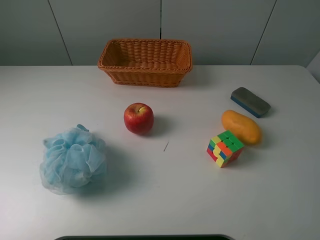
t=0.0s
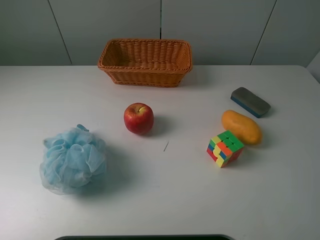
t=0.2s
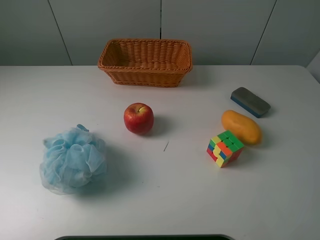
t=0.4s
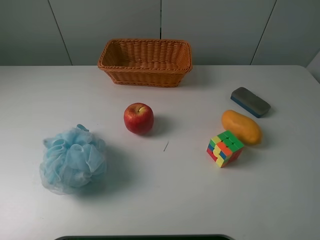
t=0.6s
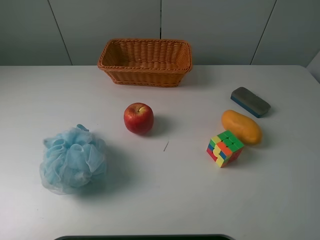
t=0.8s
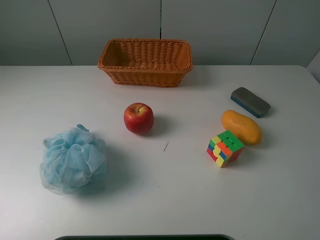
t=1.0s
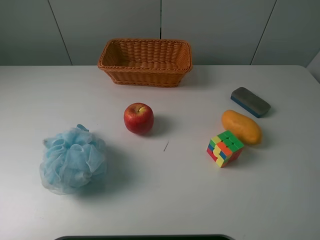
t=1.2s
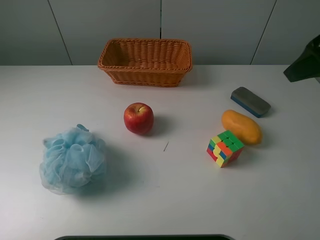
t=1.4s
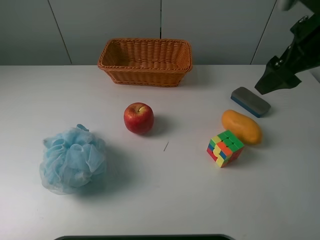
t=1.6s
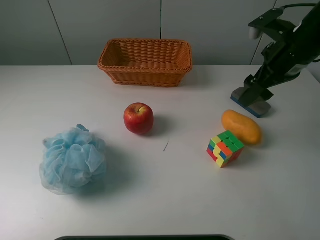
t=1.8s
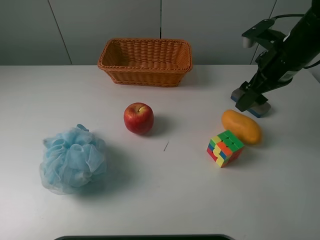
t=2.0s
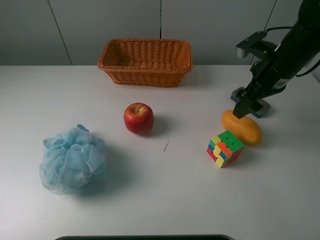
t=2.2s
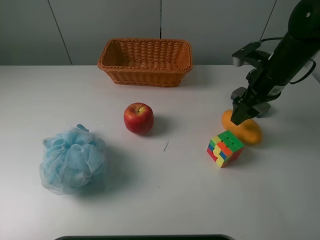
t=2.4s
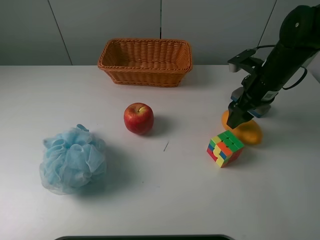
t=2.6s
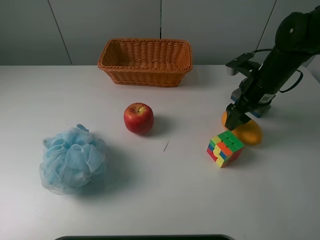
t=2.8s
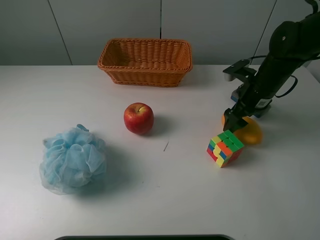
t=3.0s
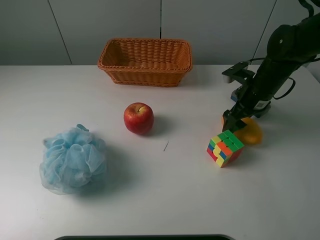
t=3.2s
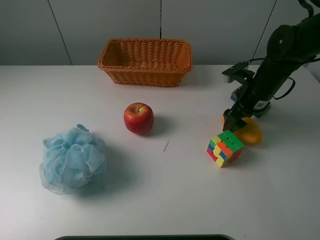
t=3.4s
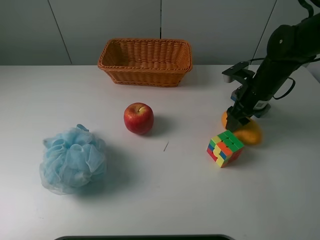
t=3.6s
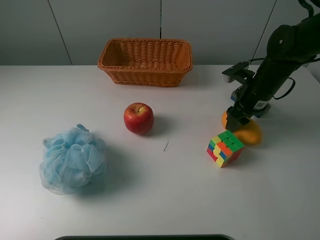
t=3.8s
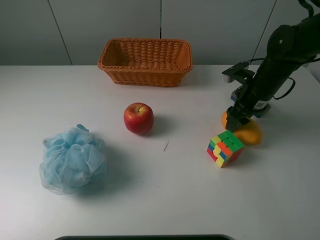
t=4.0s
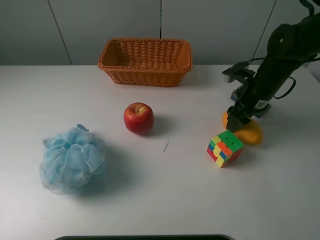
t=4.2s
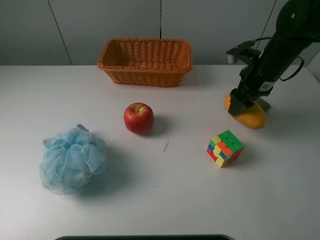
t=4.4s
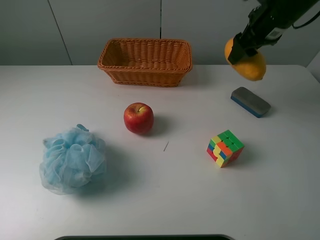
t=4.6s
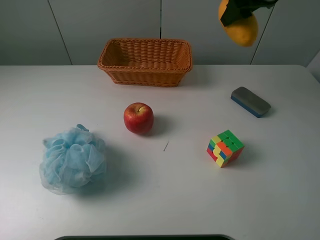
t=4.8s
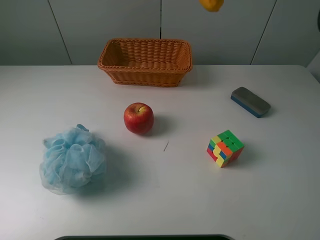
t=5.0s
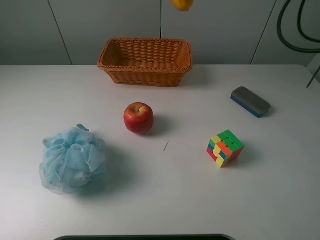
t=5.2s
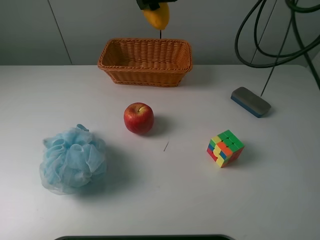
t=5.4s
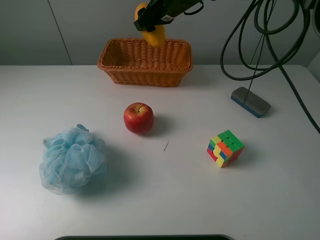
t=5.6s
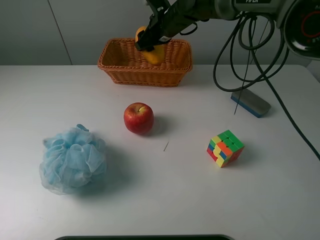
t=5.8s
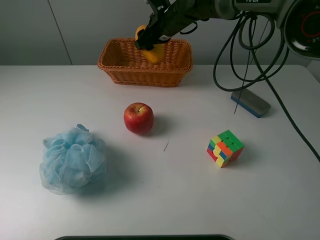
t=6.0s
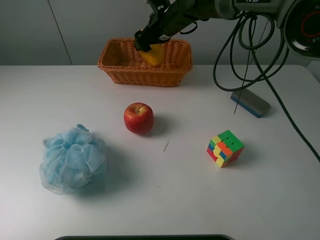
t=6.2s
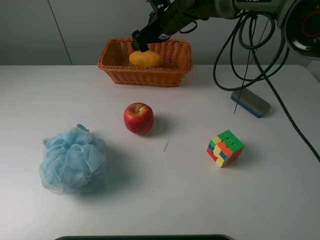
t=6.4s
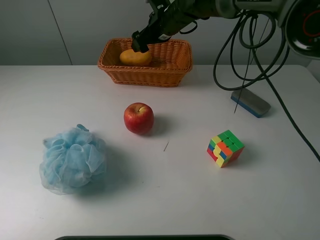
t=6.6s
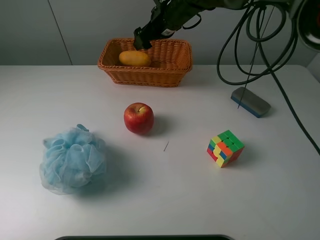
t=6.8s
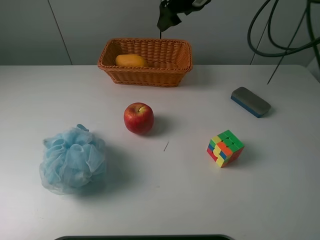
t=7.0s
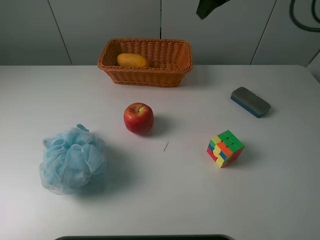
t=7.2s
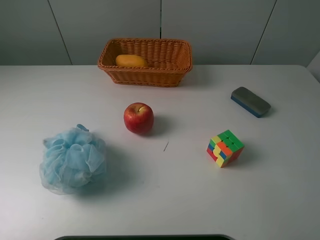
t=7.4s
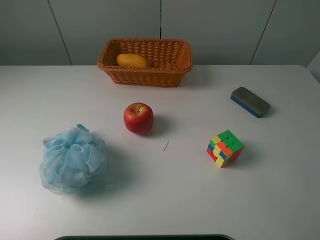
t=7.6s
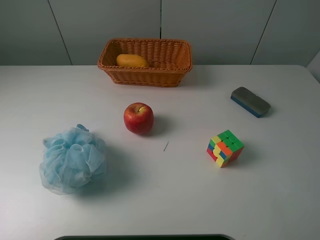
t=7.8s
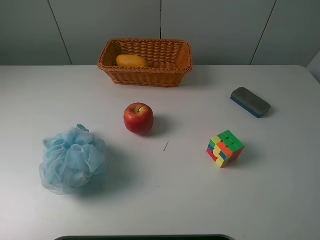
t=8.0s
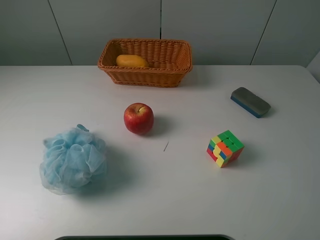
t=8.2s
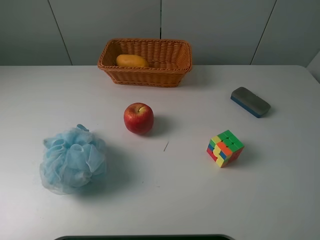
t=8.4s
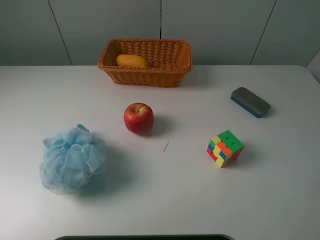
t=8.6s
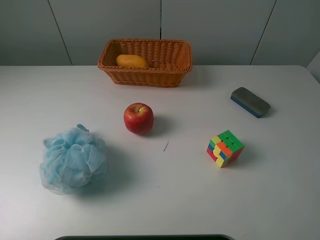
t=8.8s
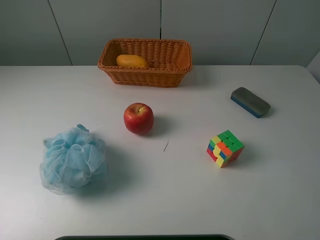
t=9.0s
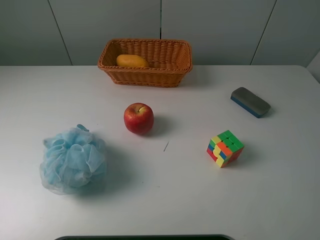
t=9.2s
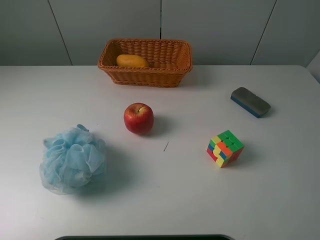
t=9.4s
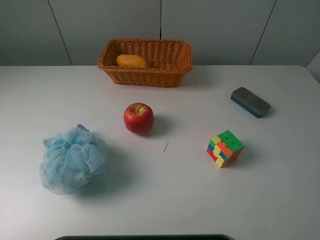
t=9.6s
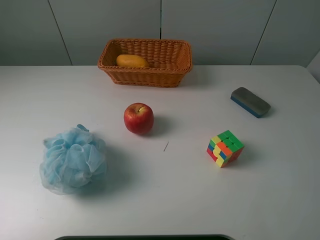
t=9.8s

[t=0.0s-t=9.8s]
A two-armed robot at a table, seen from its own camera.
Task of the whole recording: use a picker to grab the item closest to the cube and place it in the basket.
Step, t=0.0s to t=4.0s: Grasp the mango with the right gripper.
Step, t=4.2s to t=6.8s: Place the mango into the basket with the right gripper.
t=0.0s to t=1.4s: The right gripper heads forward, covering roughly 25 cm.
t=1.4s to t=2.8s: The right gripper moves downward and forward, roughly 20 cm.
t=2.8s to t=4.2s: The right gripper closes up.
t=4.2s to t=5.6s: The right gripper goes about 25 cm to the left, forward and upward.
t=5.6s to t=7.0s: The right gripper shifts approximately 10 cm upward and to the right, and opens.
t=7.0s to t=8.4s: The right gripper is displaced backward and to the right by about 40 cm.
